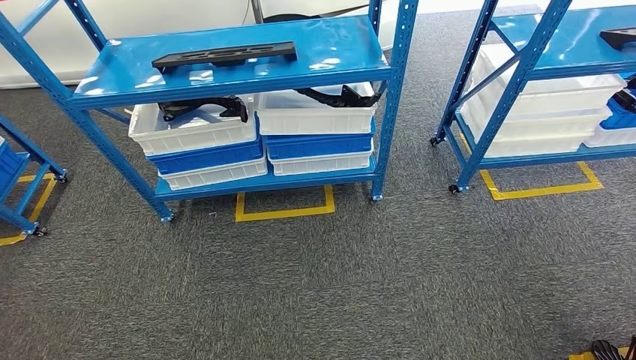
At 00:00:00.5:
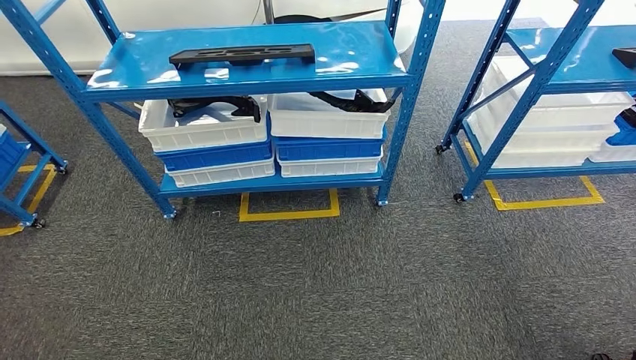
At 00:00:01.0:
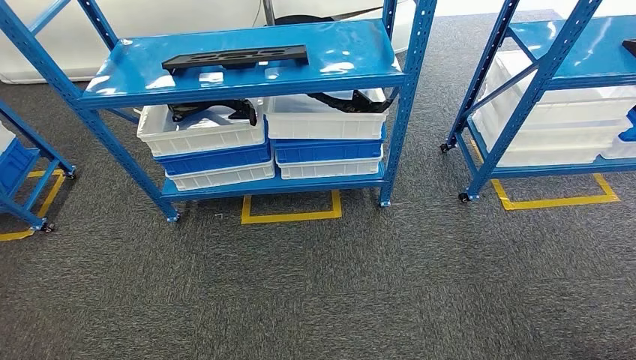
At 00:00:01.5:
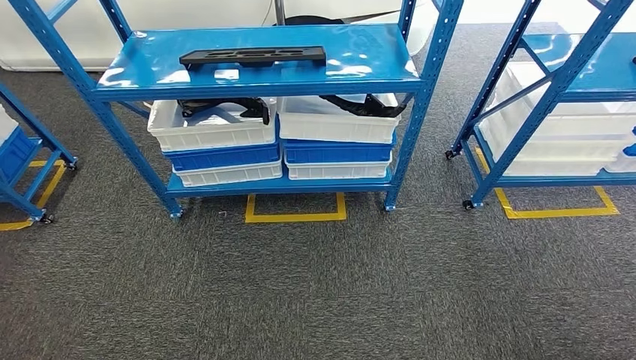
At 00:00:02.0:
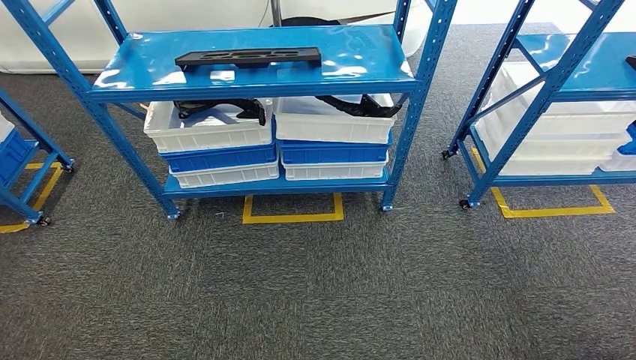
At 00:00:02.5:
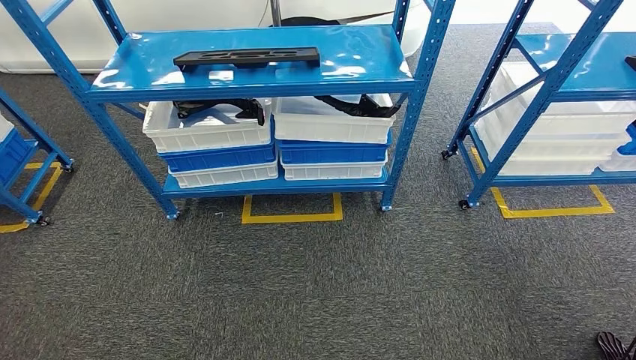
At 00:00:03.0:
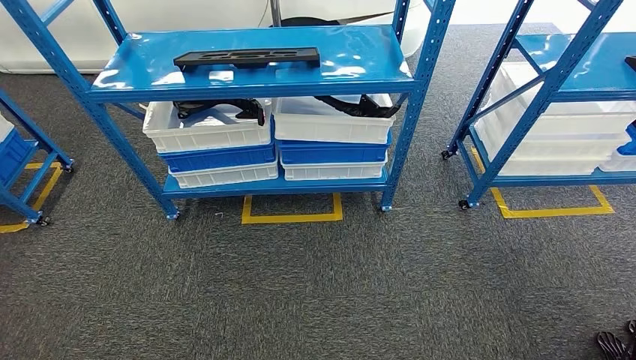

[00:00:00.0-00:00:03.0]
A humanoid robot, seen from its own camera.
00:00:01.5 to 00:00:03.0: There are only small adjustments of the hands.

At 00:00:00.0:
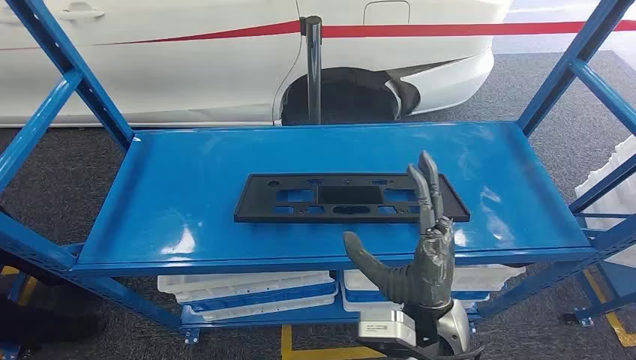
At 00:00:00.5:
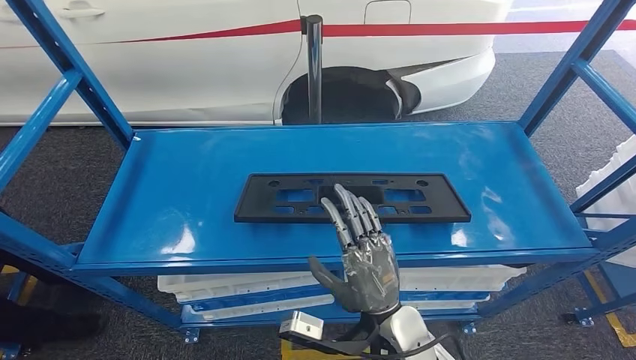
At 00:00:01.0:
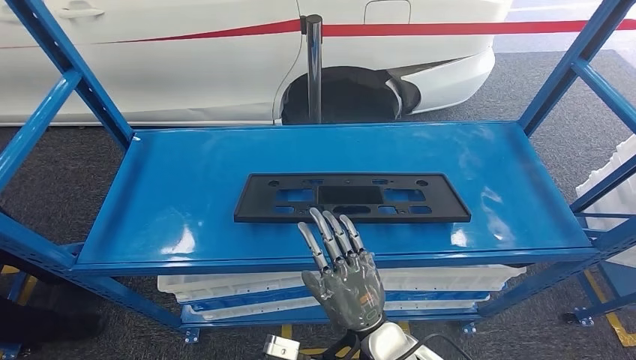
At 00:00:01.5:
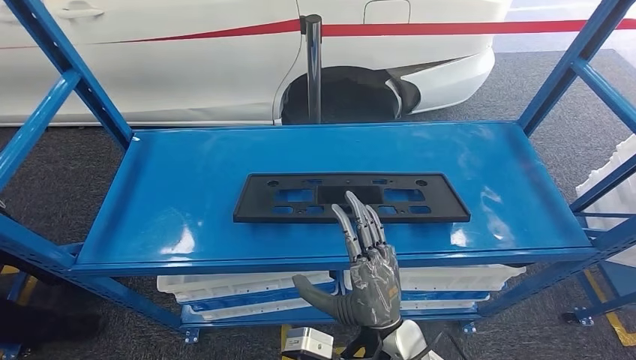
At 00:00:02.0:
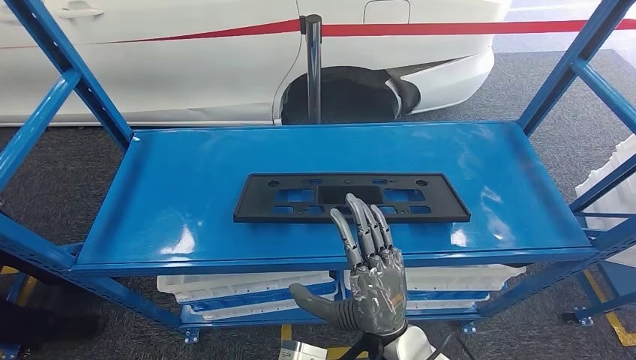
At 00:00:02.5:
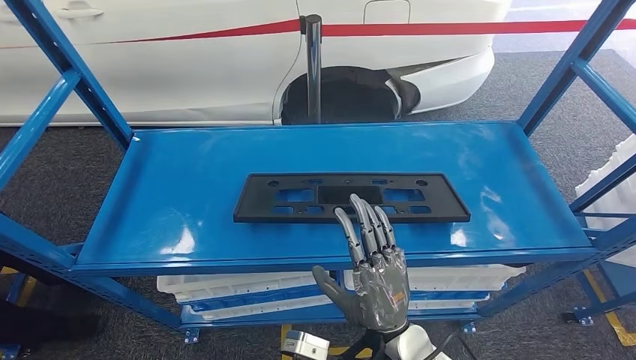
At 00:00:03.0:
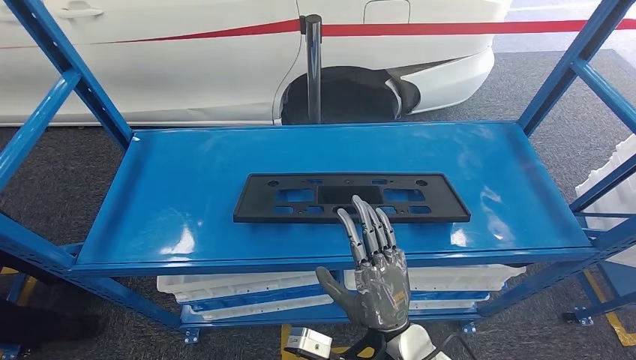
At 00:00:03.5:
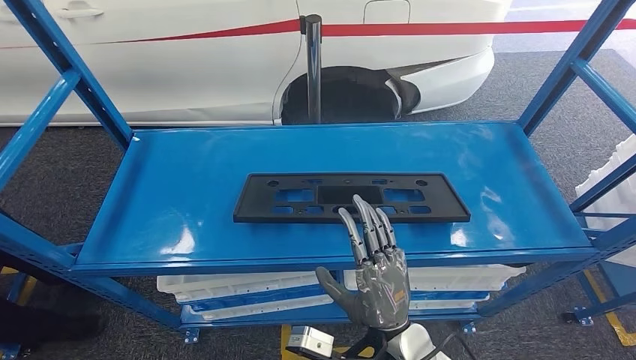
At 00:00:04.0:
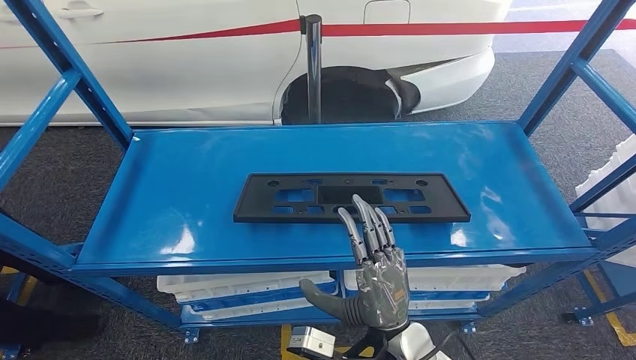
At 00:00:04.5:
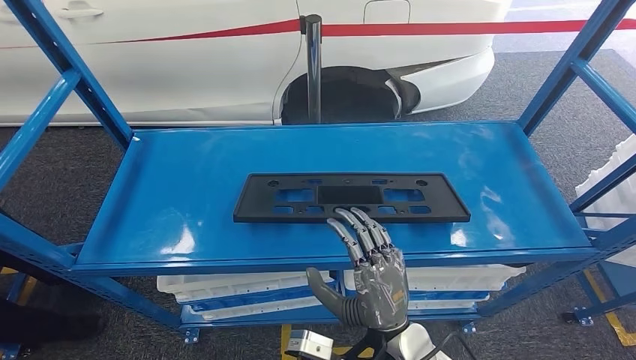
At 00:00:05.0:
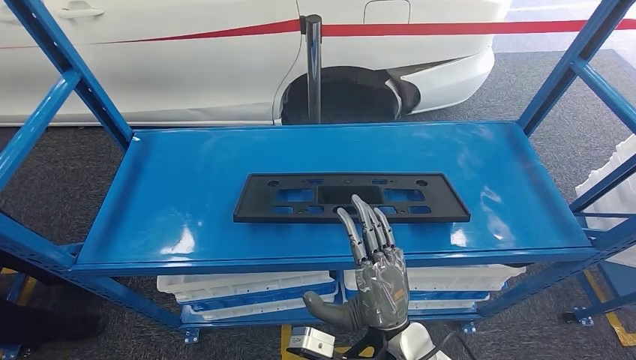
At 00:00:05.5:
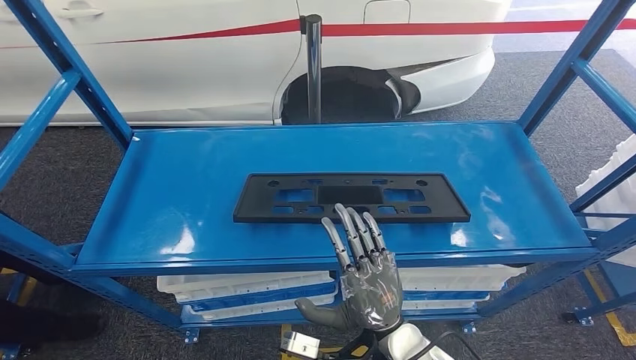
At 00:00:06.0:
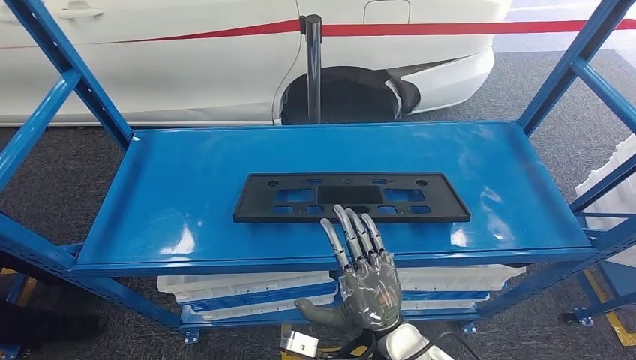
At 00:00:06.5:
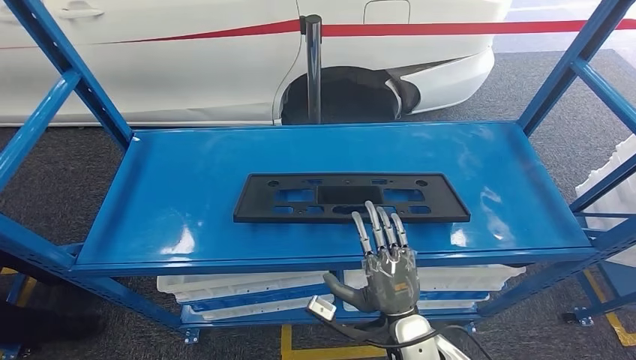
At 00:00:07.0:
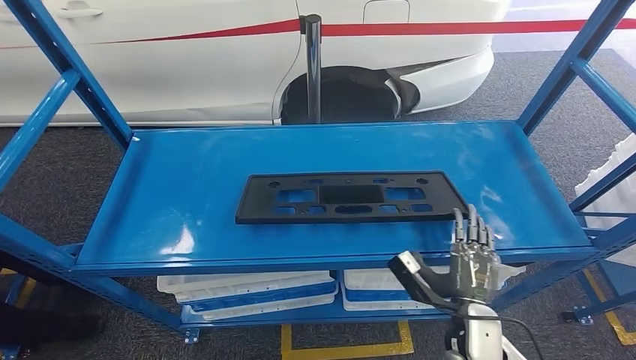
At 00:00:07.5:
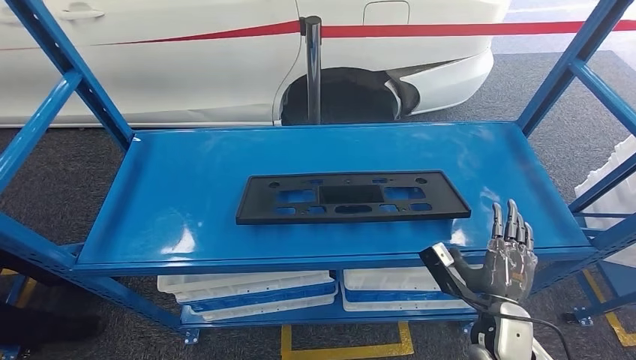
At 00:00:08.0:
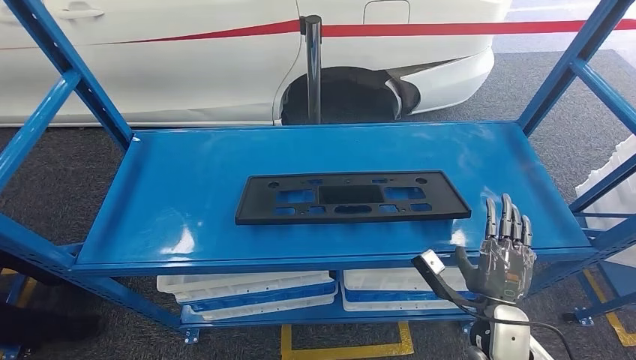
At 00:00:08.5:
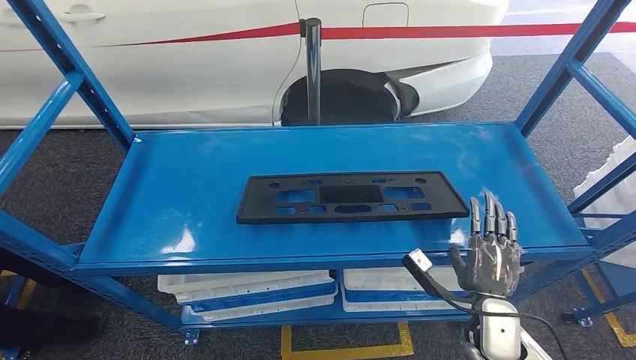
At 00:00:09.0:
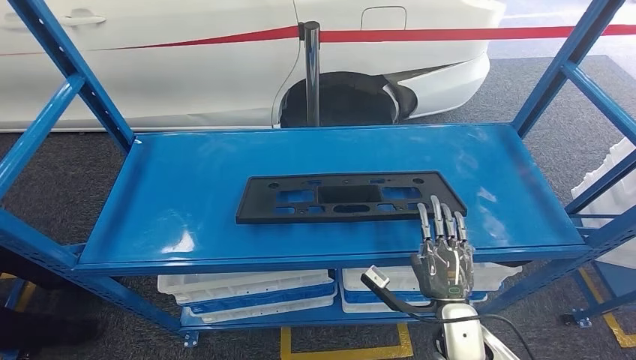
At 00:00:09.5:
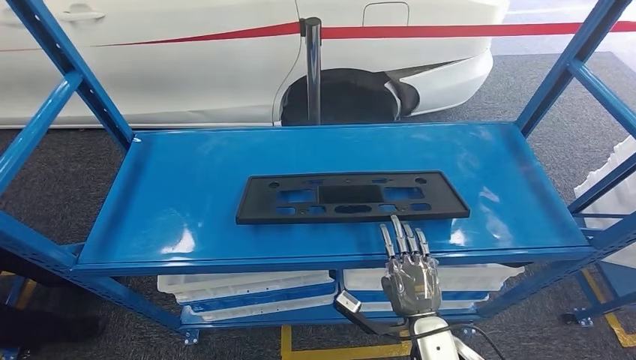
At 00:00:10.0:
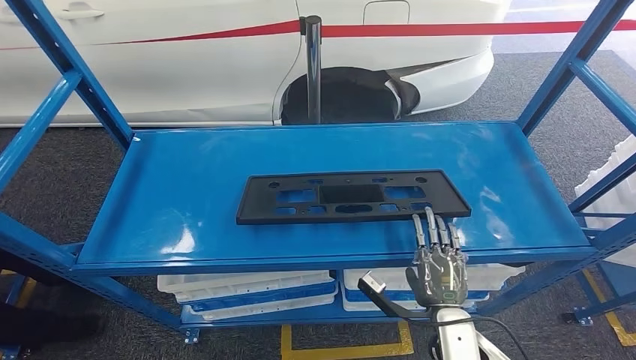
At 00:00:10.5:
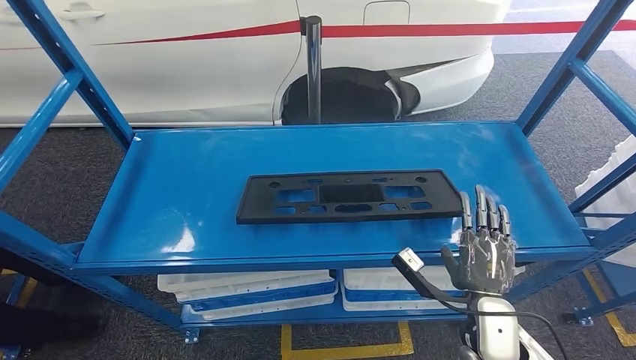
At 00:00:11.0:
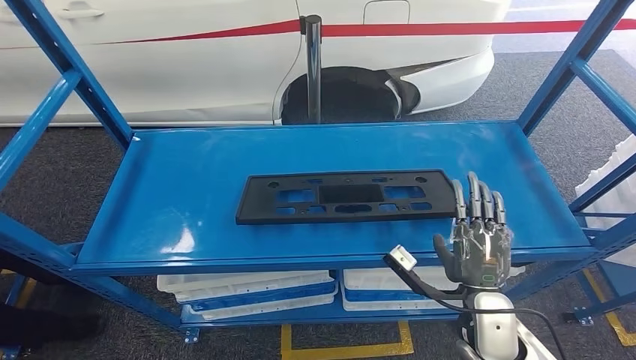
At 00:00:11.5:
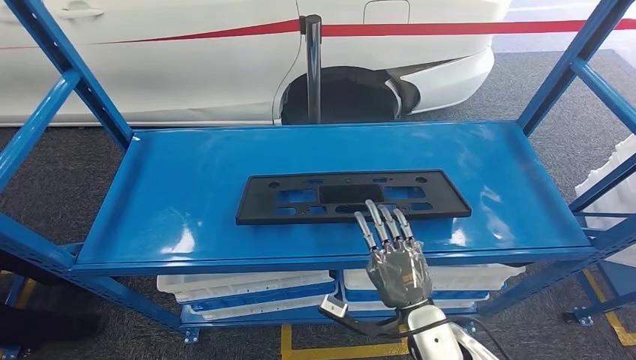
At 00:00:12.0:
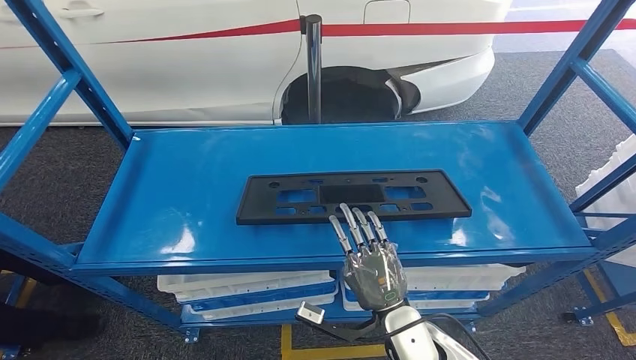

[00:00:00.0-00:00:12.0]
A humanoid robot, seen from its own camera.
00:00:02.0 to 00:00:06.0: The hands move only a little.
00:00:06.0 to 00:00:08.0: The right hand is displaced to the right by about 20 cm.
00:00:08.0 to 00:00:10.0: The right hand heads to the left, covering roughly 10 cm.
00:00:10.0 to 00:00:12.0: The right hand travels to the left by some 10 cm.

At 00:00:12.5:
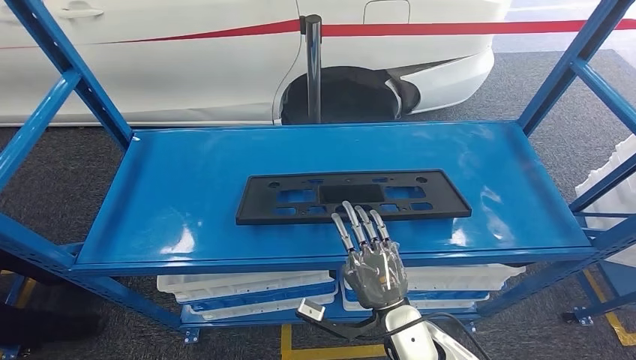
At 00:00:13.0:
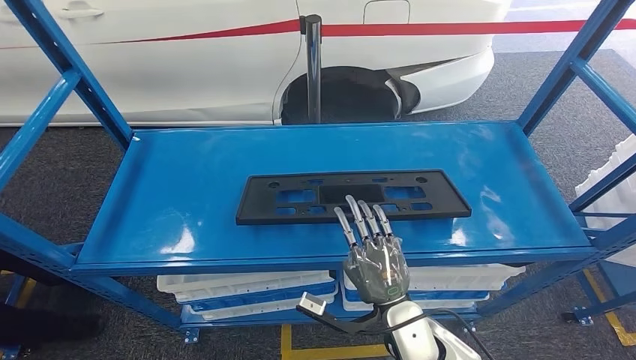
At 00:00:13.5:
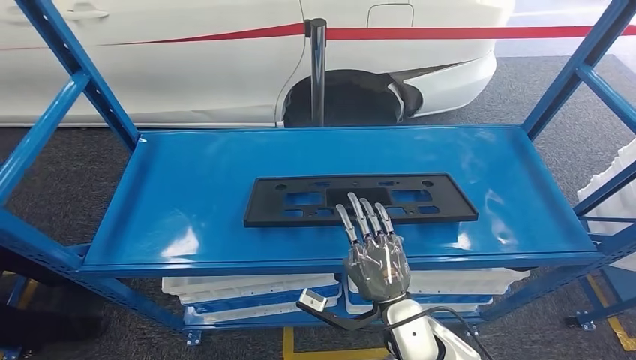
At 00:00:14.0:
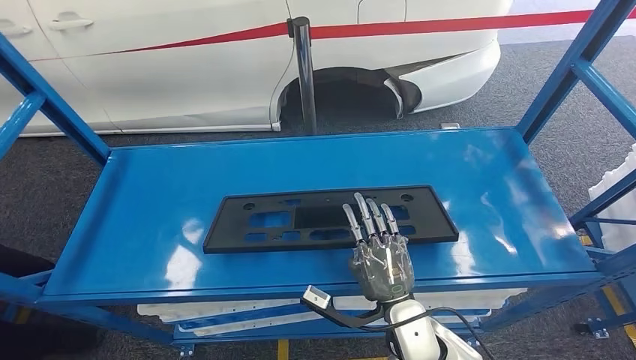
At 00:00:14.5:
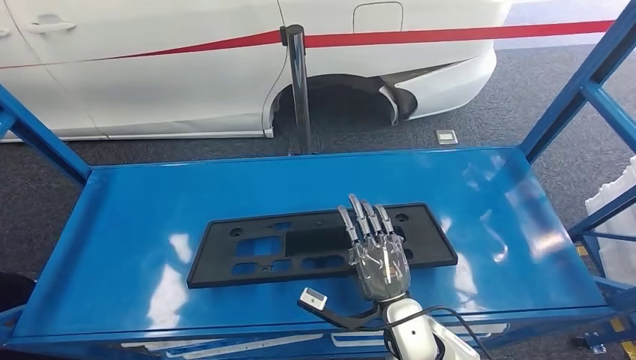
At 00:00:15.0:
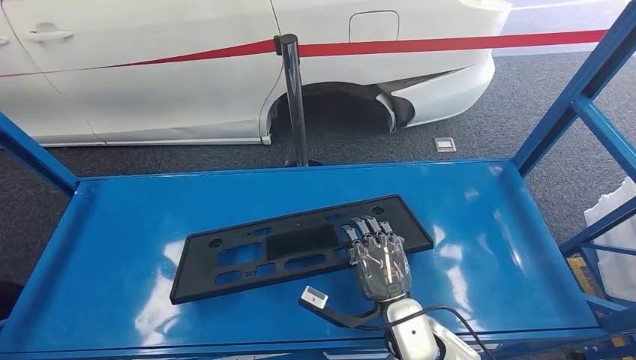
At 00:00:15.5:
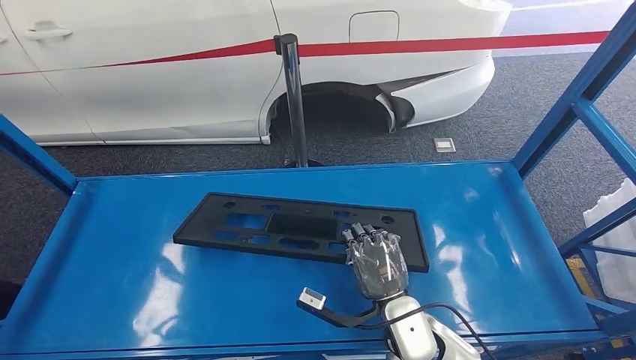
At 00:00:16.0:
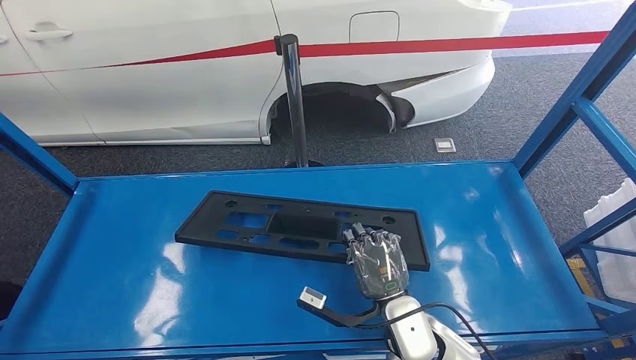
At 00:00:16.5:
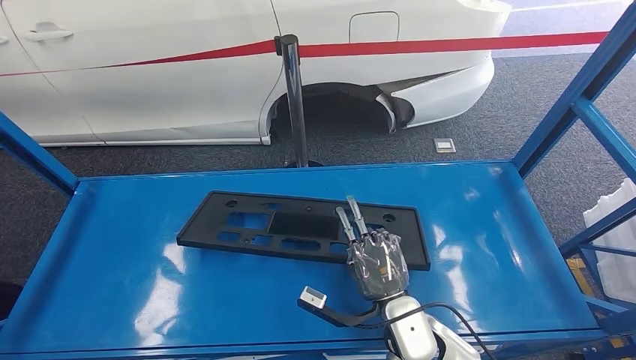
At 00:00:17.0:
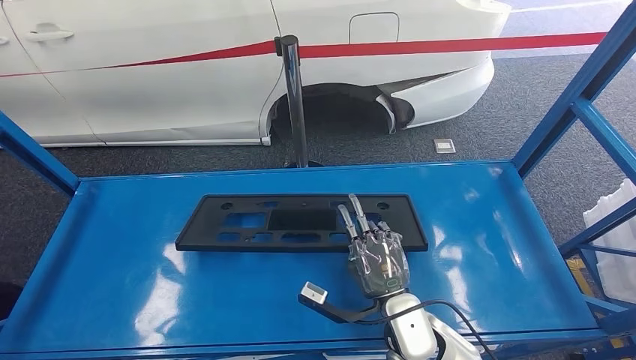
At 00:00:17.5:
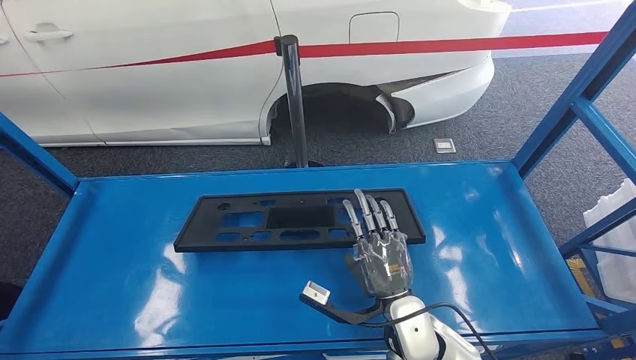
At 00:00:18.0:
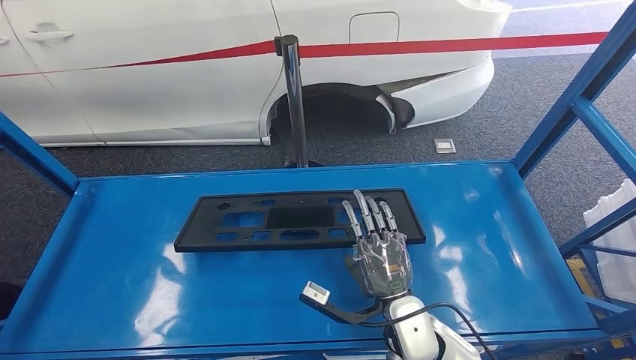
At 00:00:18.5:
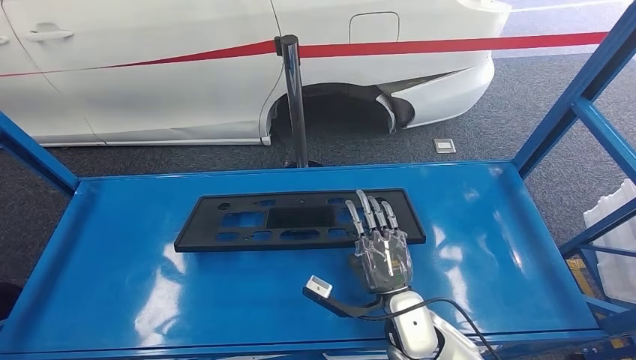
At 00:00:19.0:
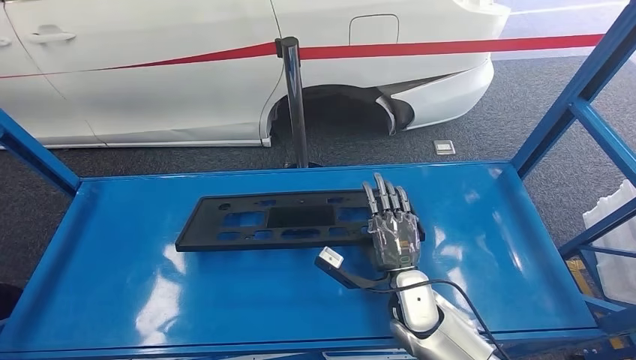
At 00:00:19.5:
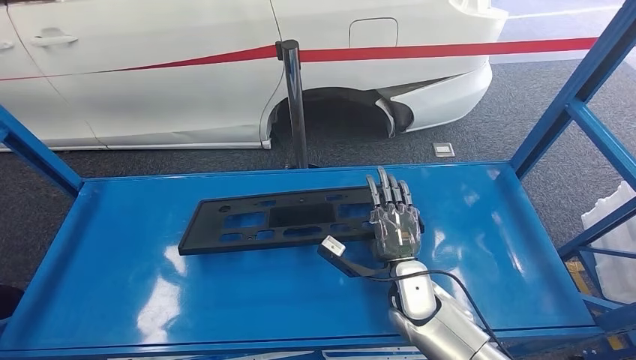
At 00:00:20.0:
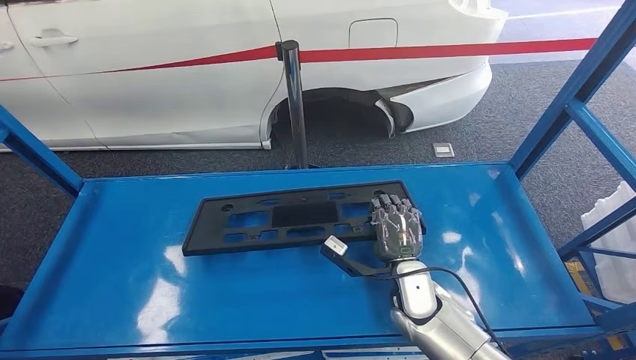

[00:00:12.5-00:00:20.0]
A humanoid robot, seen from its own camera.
00:00:16.5 to 00:00:18.0: There are only small adjustments of the hands.
00:00:18.0 to 00:00:20.0: The right hand goes roughly 5 cm forward.